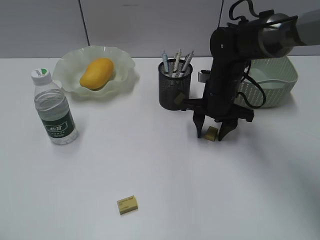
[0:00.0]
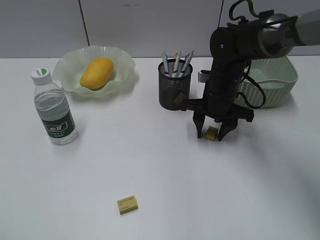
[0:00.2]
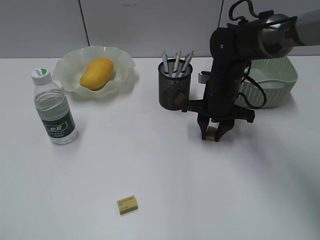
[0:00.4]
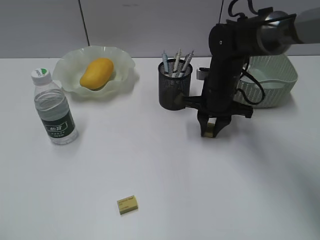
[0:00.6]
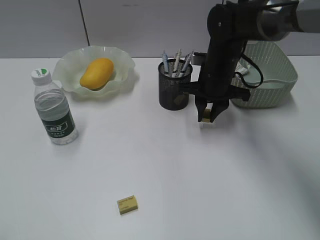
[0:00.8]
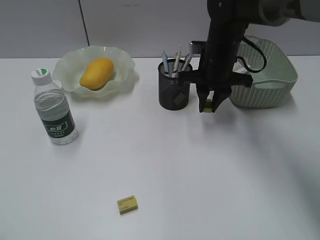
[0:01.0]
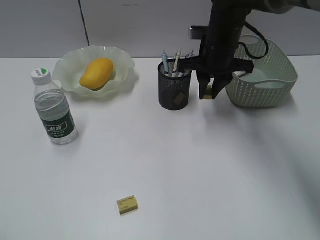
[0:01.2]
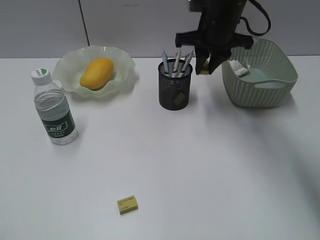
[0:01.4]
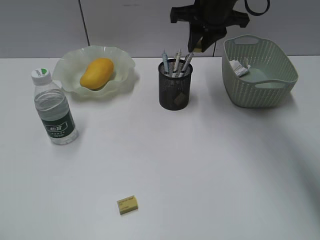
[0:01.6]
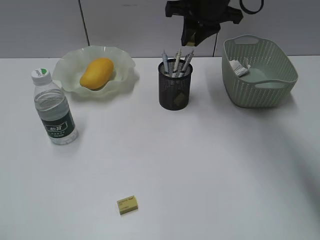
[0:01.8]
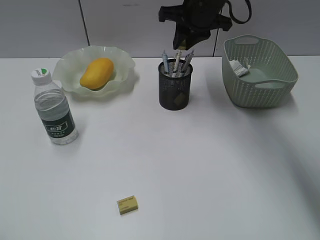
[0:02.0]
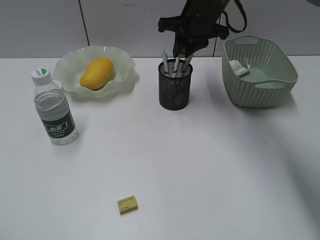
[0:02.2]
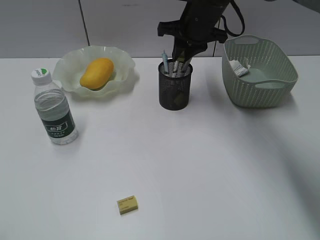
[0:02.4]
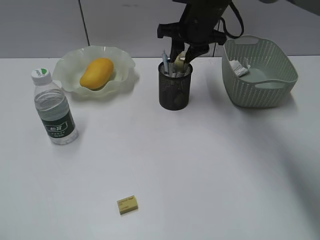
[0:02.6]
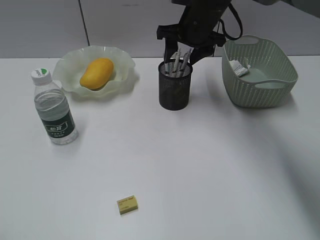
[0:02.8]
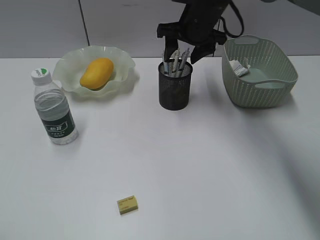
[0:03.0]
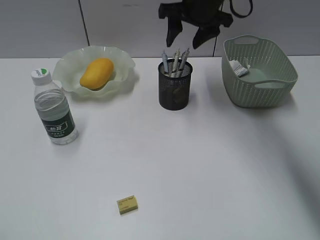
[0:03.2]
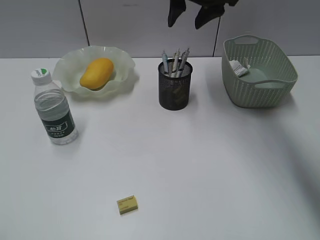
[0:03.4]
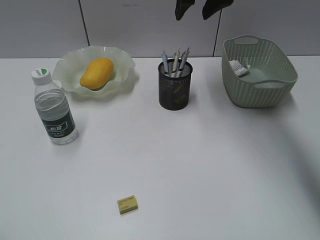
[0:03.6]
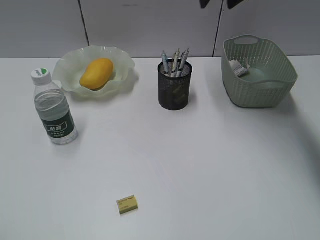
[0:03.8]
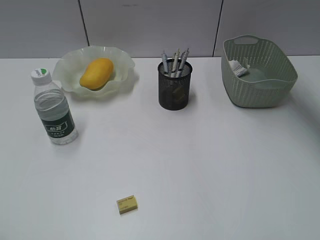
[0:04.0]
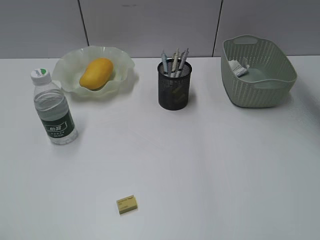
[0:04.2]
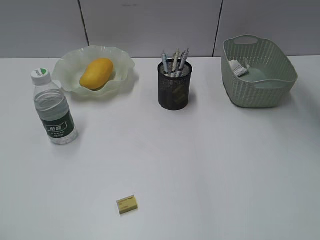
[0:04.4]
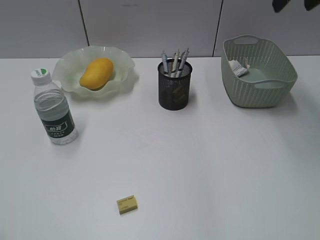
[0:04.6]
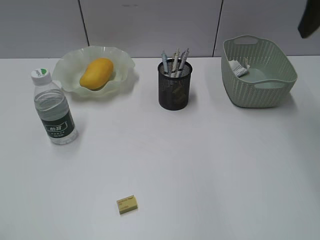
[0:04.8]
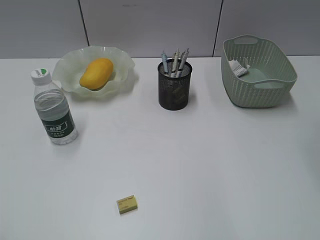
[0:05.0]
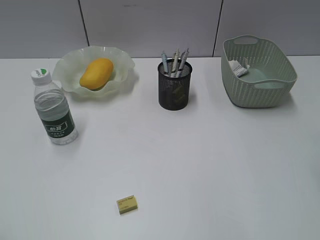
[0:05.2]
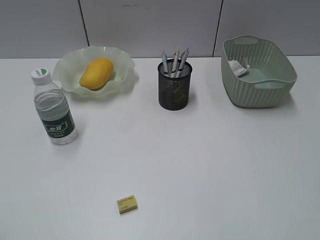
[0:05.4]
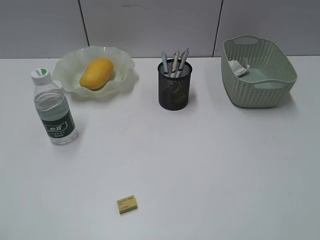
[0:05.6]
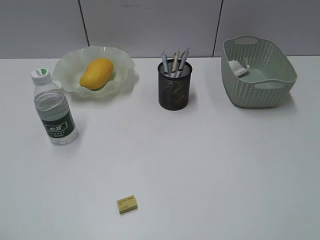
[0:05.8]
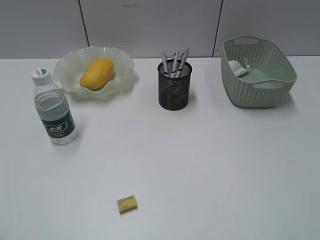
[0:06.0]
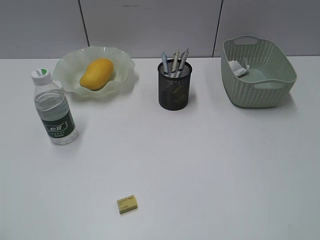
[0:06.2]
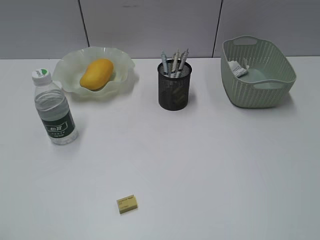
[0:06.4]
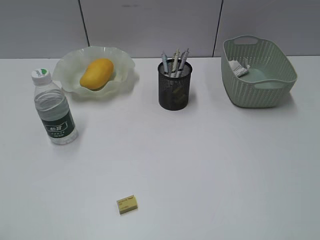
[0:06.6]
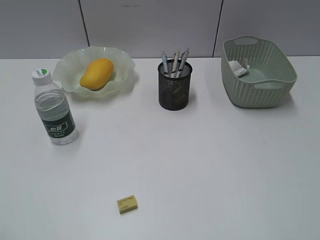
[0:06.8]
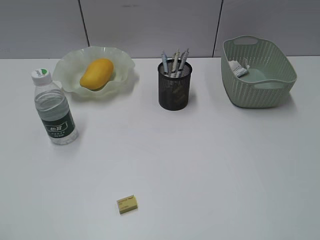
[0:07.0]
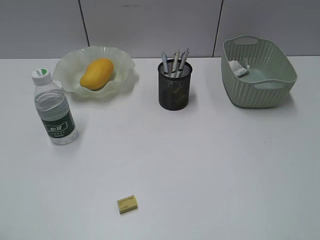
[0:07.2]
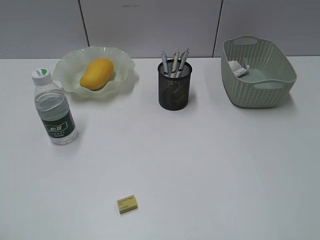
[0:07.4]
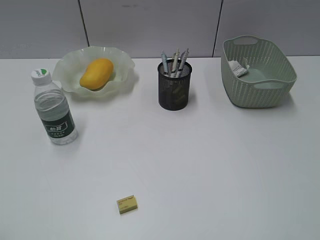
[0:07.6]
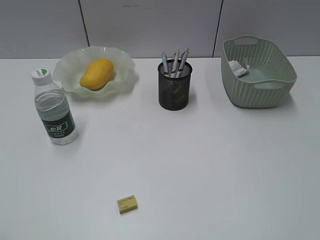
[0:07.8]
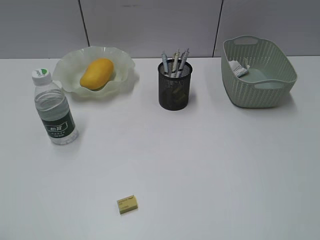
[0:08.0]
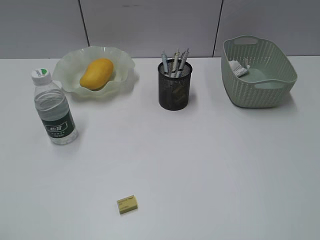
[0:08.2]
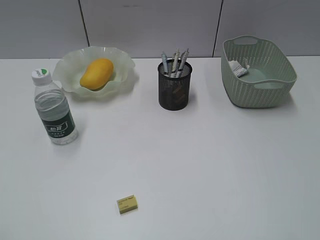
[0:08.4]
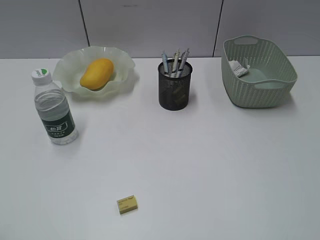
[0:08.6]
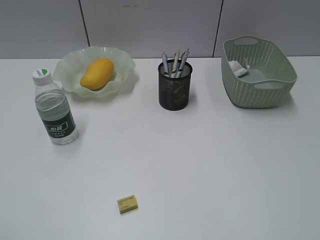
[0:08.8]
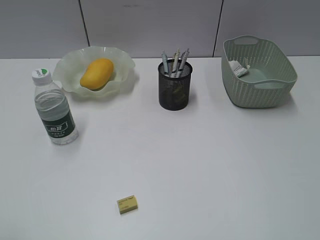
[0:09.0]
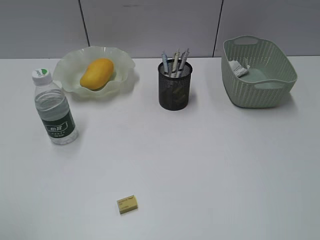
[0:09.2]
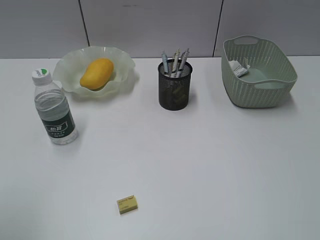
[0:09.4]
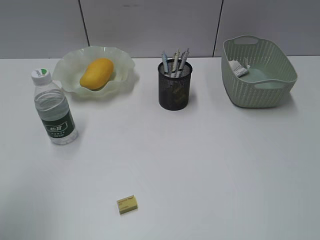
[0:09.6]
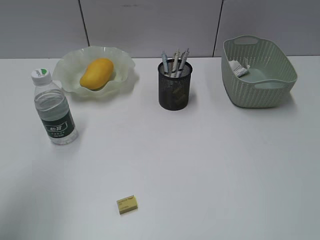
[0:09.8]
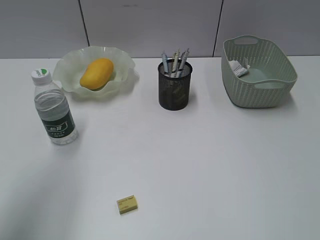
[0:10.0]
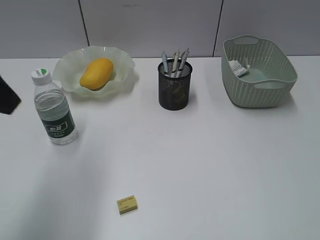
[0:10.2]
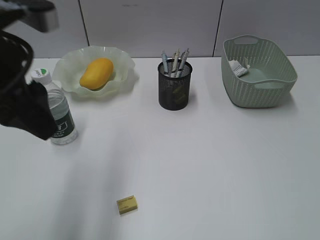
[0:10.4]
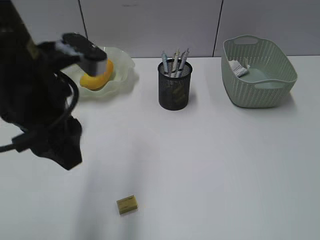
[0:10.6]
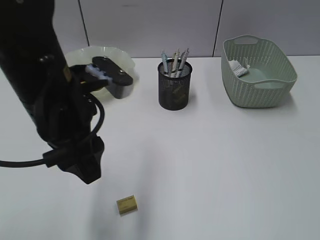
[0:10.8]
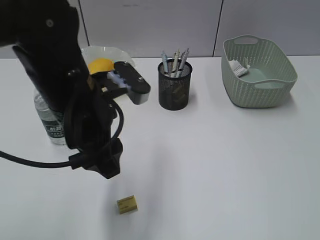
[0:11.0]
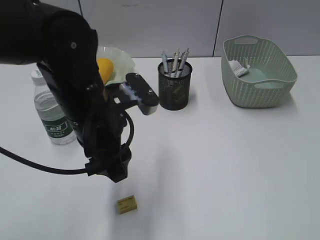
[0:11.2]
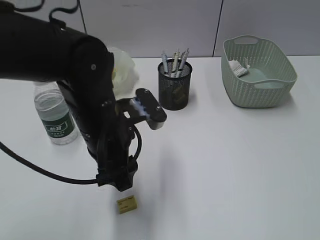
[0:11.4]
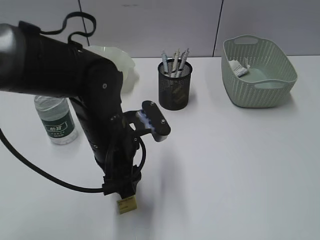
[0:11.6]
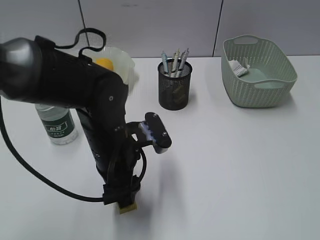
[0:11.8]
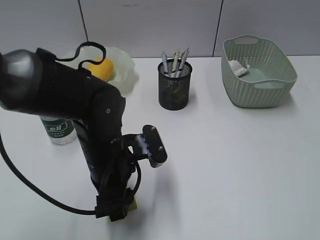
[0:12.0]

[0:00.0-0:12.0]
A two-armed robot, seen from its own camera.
Step, 0:00.6 to 0:02.8: Place the eraser in pen holder with right gripper.
0:00.0 to 0:01.6: The right gripper moves upward, about 15 cm, and closes its fingers.
0:01.6 to 0:03.0: The right gripper shifts by approximately 5 cm, and opens.
0:03.0 to 0:04.4: The right gripper is displaced to the right and upward by about 20 cm.
0:04.4 to 0:06.0: The right gripper shifts roughly 40 cm backward.
0:09.0 to 0:10.4: The left gripper is displaced forward and to the right by approximately 25 cm.
0:10.4 to 0:12.0: The left gripper heads downward and to the right, covering about 25 cm.

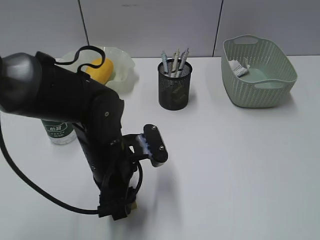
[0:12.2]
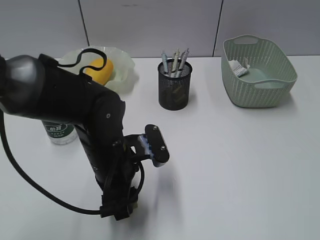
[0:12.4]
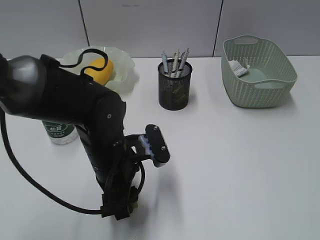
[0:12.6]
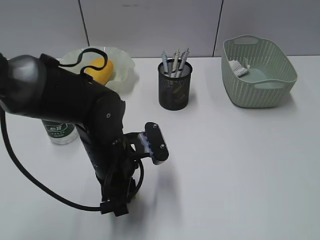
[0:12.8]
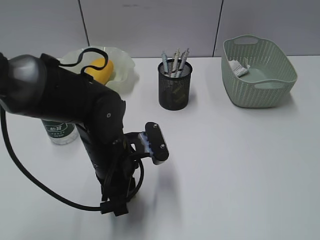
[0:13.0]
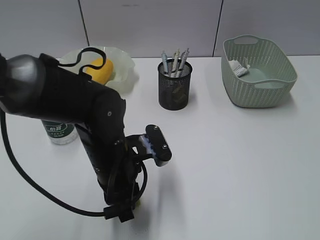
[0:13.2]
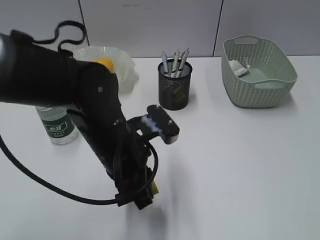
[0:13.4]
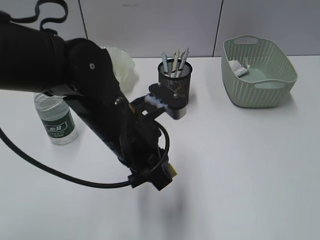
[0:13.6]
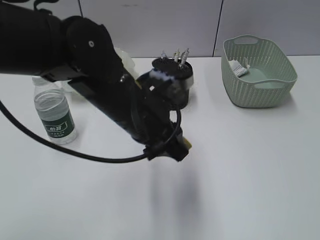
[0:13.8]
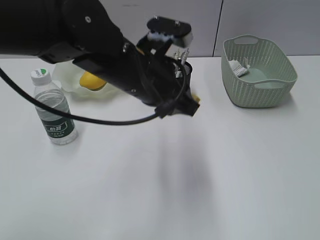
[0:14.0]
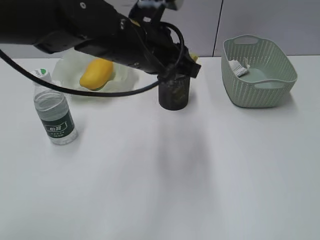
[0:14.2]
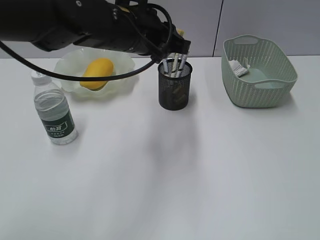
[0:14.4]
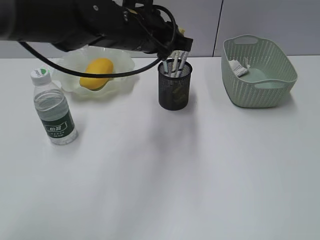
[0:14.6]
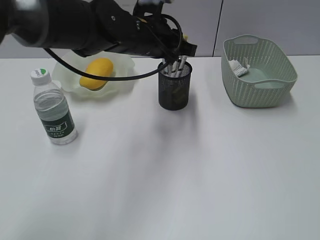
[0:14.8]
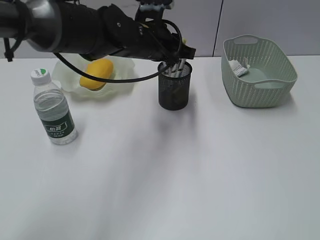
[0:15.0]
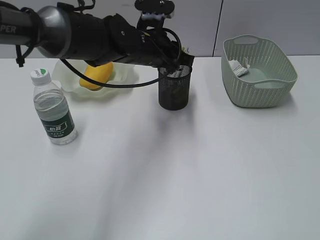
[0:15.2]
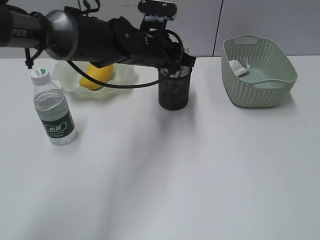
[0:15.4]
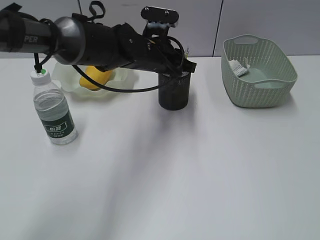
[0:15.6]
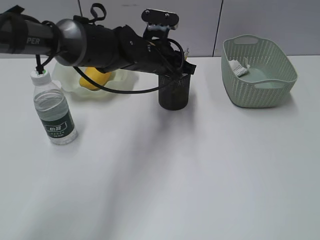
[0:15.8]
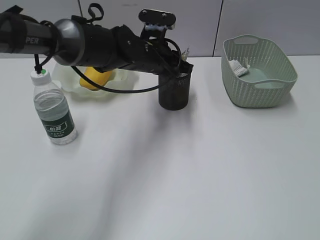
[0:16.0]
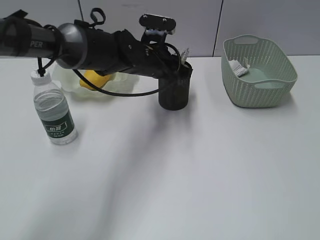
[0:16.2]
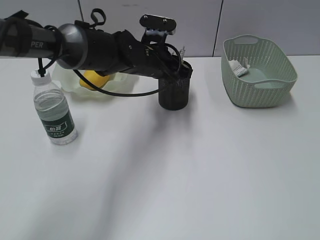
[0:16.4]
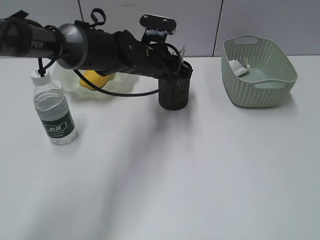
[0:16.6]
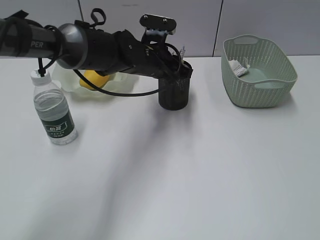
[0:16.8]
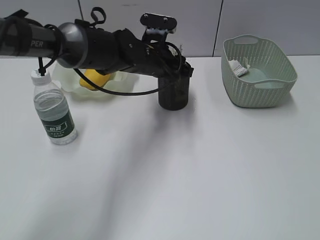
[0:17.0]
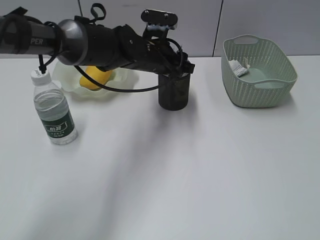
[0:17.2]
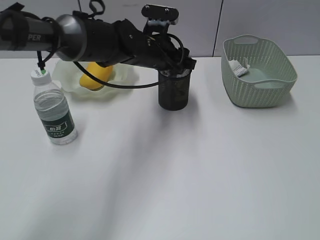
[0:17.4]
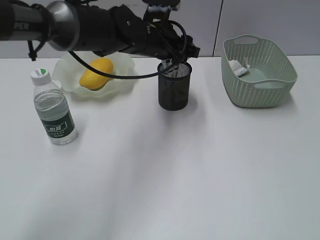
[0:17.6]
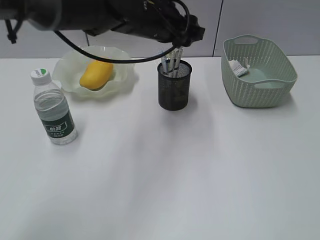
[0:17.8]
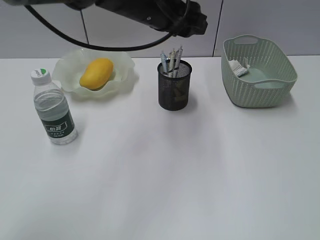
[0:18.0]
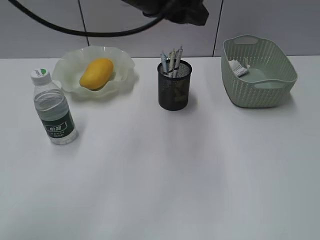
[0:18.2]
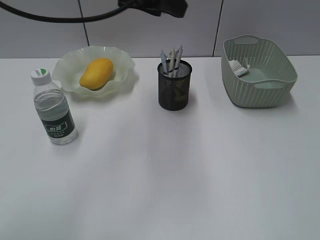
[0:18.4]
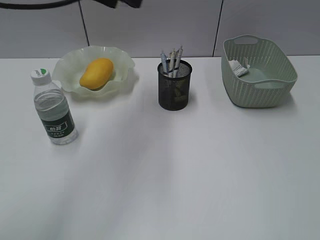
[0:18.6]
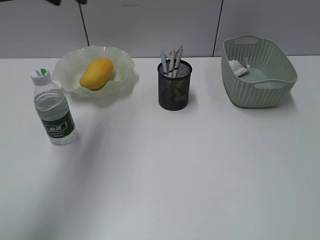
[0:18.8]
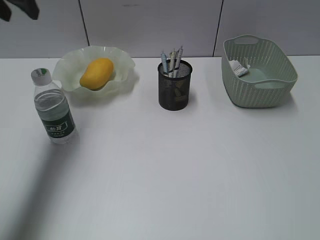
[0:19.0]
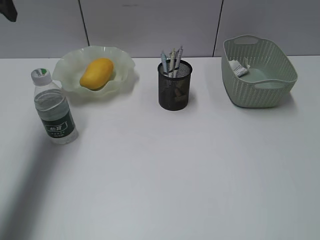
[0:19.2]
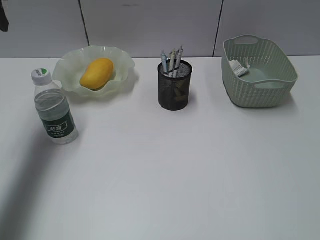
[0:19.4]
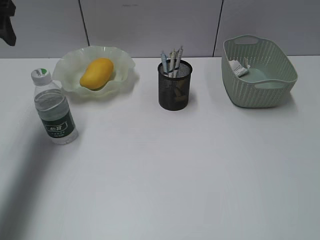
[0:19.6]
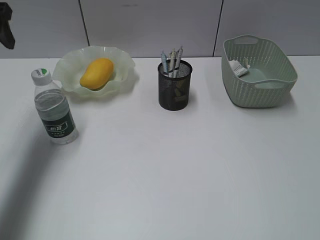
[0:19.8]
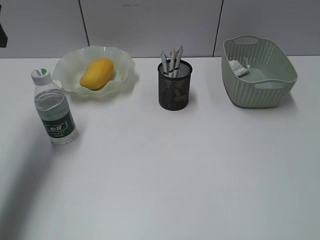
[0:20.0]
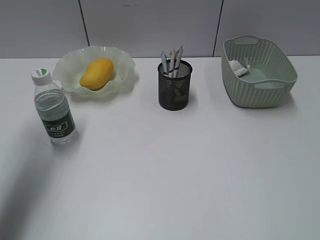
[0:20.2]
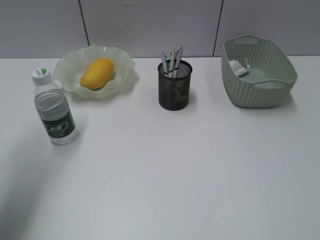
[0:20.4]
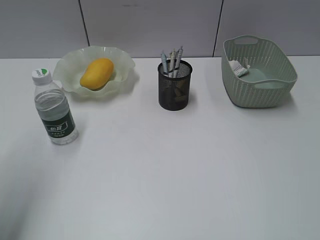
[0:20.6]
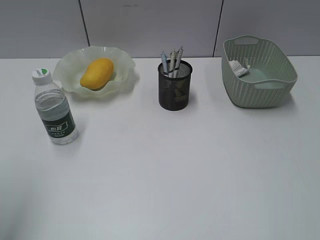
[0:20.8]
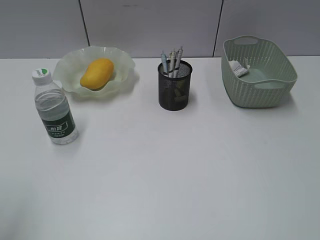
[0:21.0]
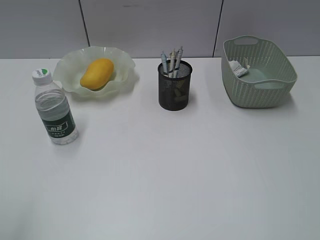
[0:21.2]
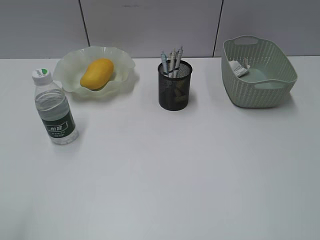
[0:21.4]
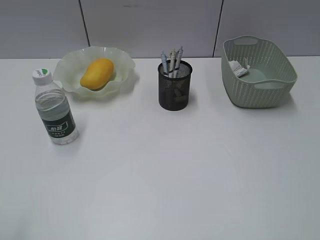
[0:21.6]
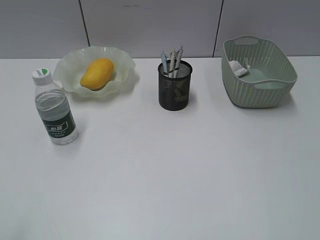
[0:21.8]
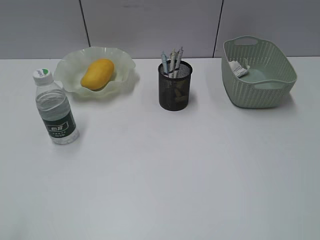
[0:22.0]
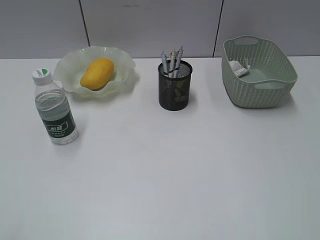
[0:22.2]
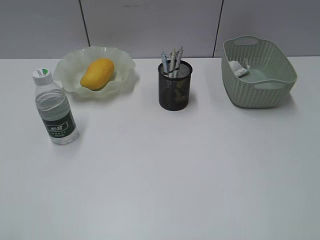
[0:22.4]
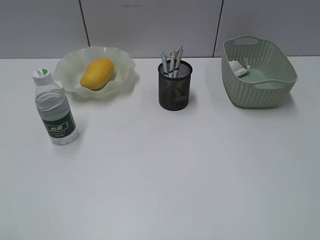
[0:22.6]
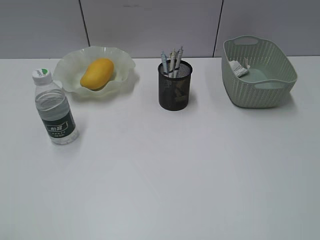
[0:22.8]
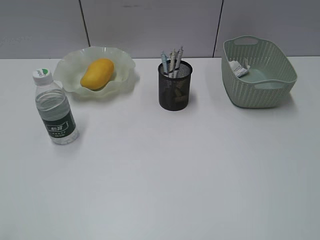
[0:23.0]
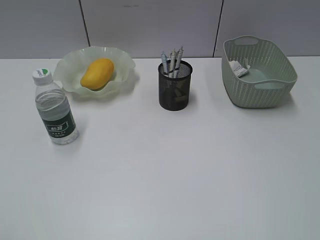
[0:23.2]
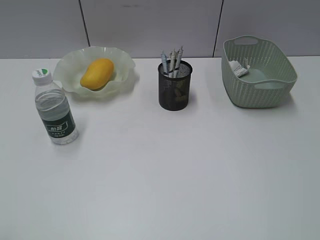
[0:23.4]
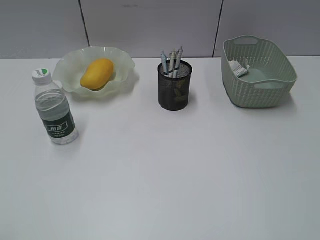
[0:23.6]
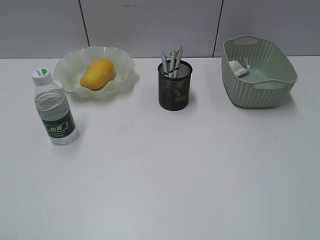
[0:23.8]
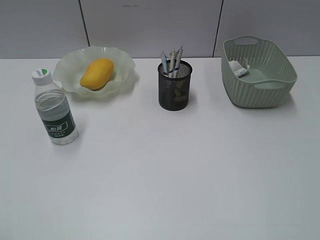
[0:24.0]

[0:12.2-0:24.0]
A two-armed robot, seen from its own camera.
Step, 0:13.2 to 0:17.0: Place the eraser in pen holder with left gripper.
0:12.2 to 0:13.6: The left gripper goes roughly 5 cm upward, and closes up.
0:13.6 to 0:15.2: The left gripper moves forward, about 15 cm.
0:15.2 to 0:16.6: The grippers make only small movements.
0:16.6 to 0:18.2: The left gripper shifts about 15 cm upward and backward, and opens up.
0:18.2 to 0:19.6: The left gripper heads to the left, covering approximately 25 cm.
0:19.6 to 0:21.0: The left gripper is displaced backward by some 30 cm.
0:22.6 to 0:24.0: The two grippers keep their place.
